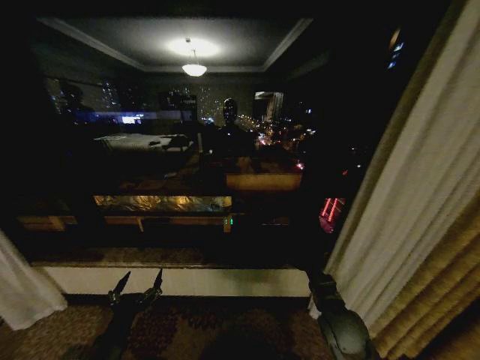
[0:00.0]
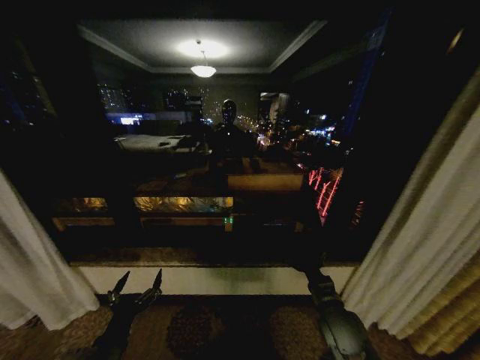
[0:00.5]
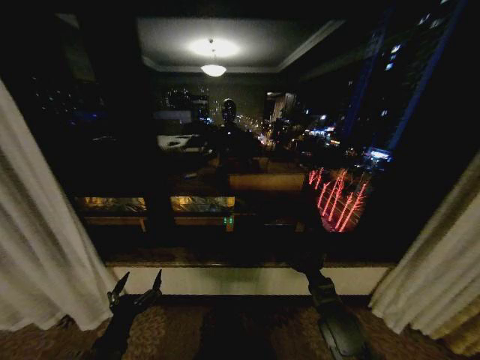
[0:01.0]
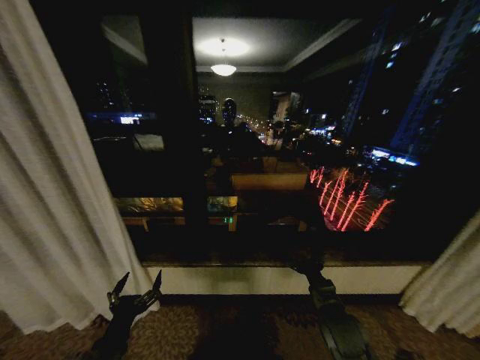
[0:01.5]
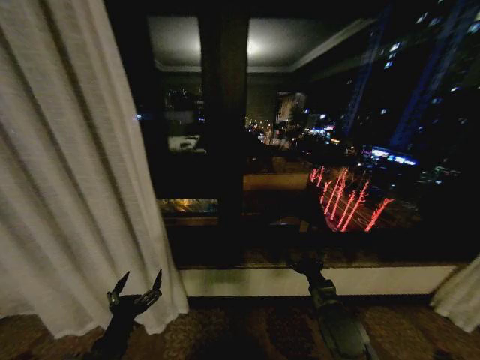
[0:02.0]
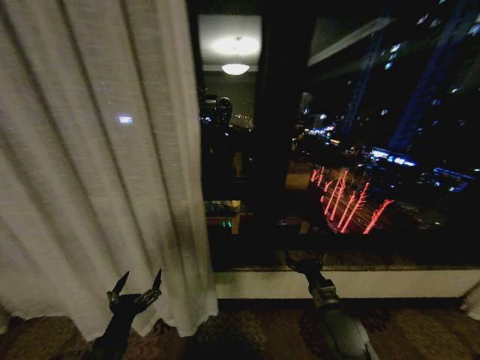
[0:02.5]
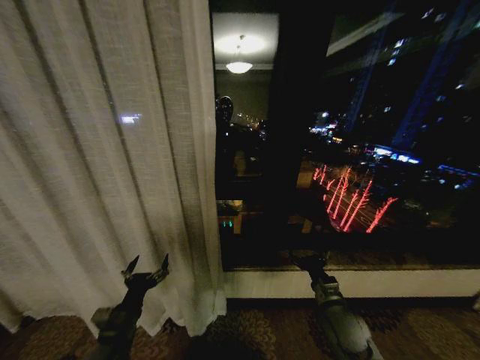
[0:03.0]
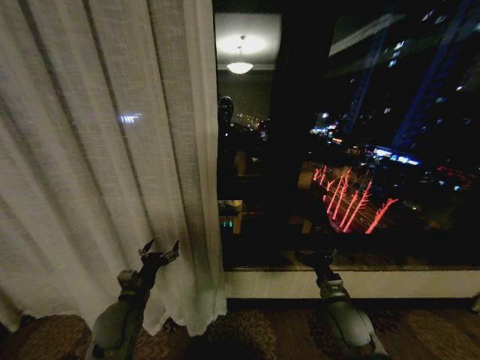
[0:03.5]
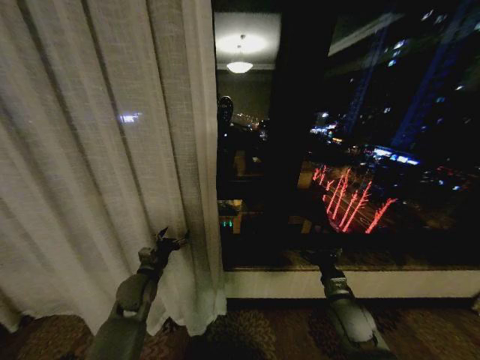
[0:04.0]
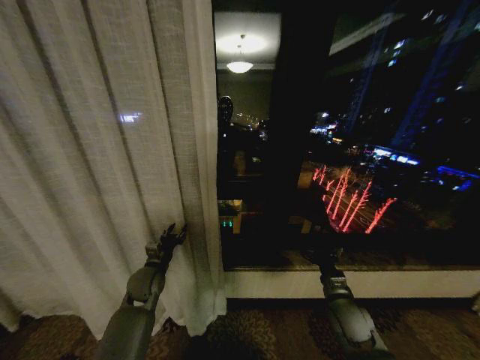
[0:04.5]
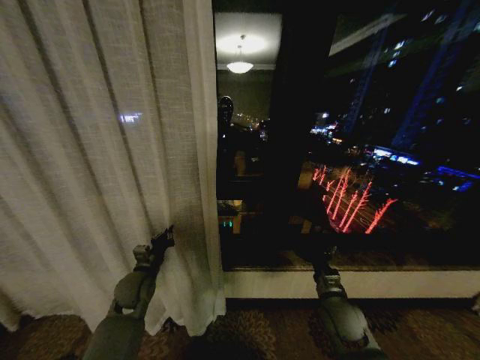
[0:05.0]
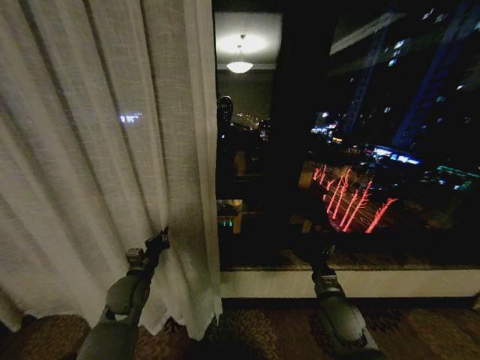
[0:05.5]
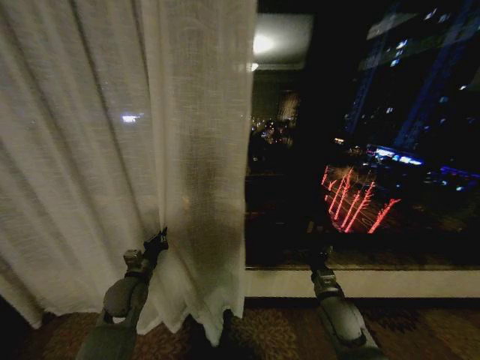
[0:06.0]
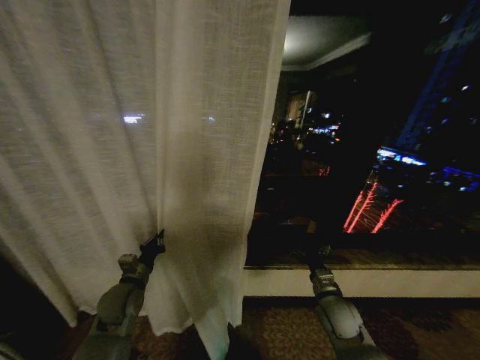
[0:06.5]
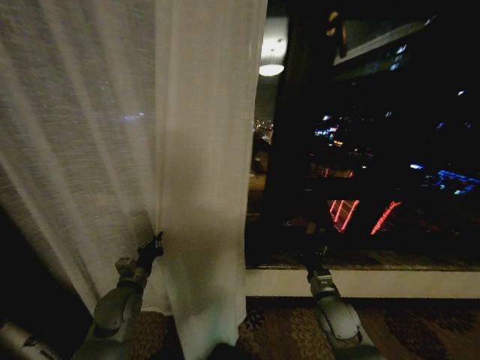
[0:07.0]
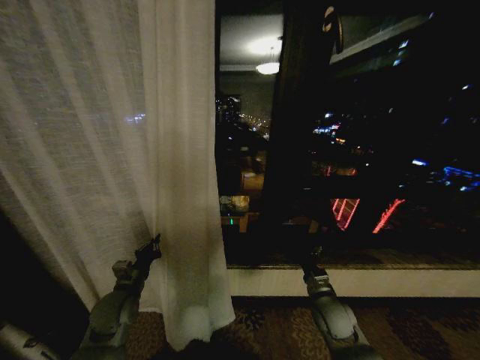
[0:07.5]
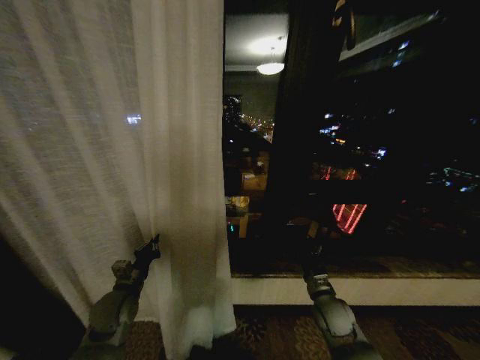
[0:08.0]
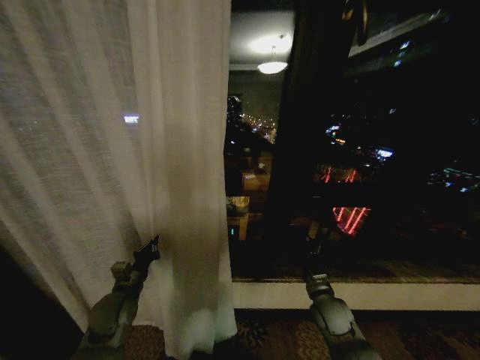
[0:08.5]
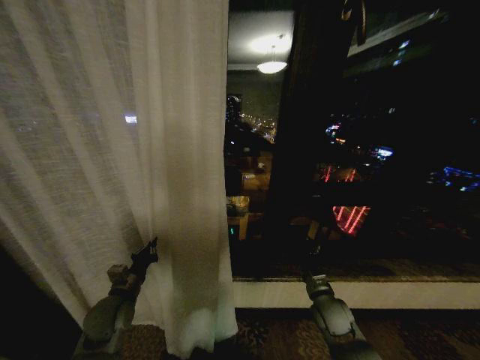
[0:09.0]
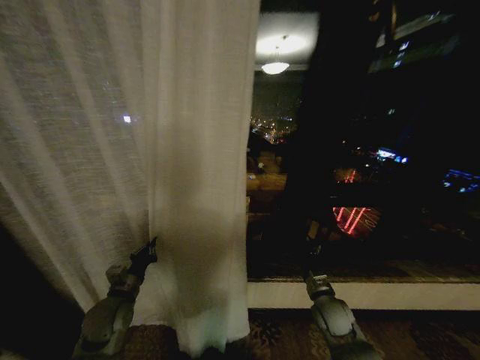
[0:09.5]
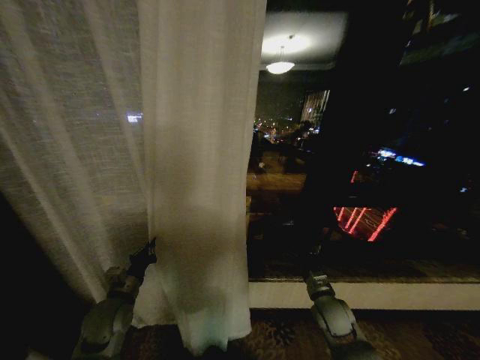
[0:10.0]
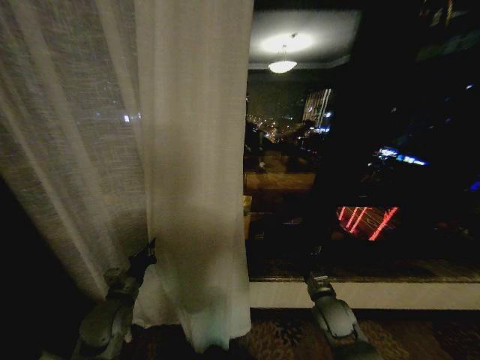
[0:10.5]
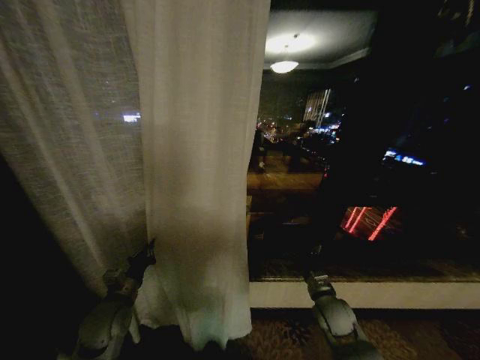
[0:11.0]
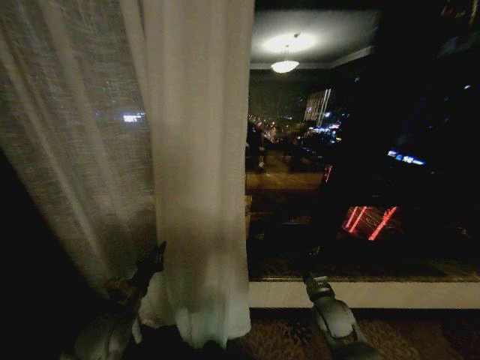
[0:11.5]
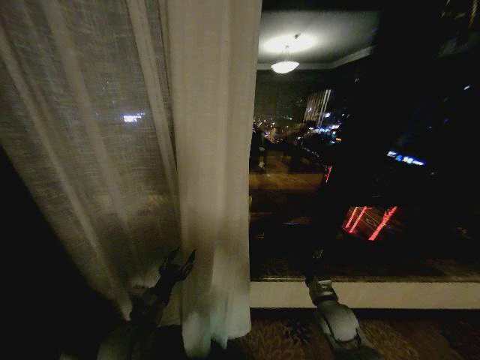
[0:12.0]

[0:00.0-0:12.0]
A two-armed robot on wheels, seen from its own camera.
Task of the whole recording: Open the curtains by pulling them apart, changing their state from closed to fully open.
0:02.0 to 0:04.0: The left gripper travels forward by roughly 25 cm.
0:04.0 to 0:06.0: The left gripper closes up.
0:10.0 to 0:12.0: The left gripper shifts about 10 cm to the right and backward, and opens.

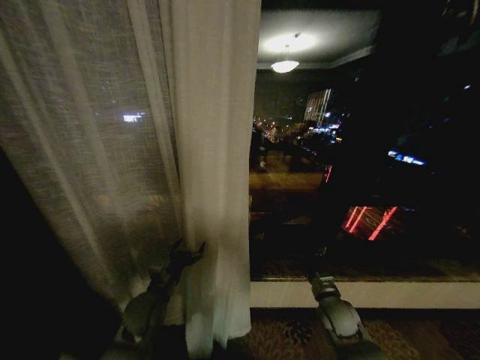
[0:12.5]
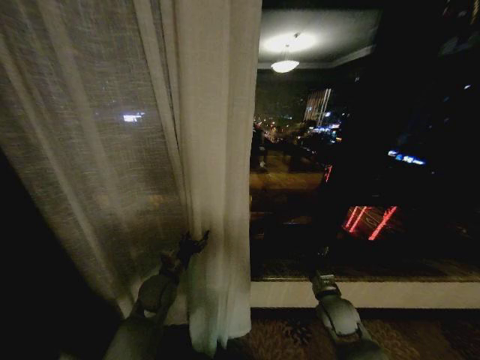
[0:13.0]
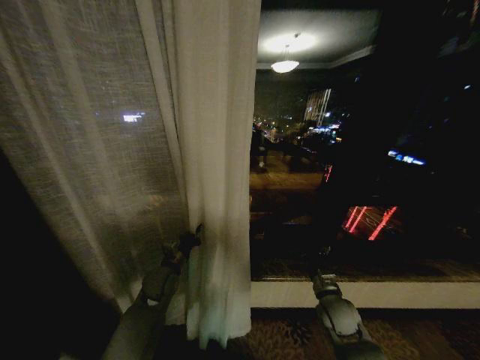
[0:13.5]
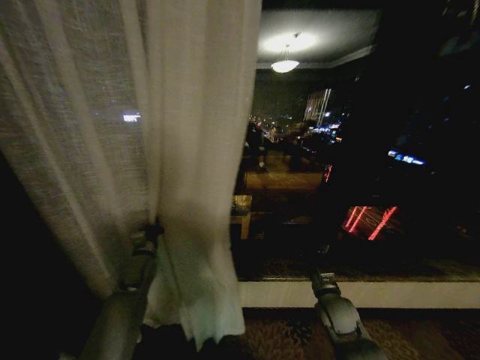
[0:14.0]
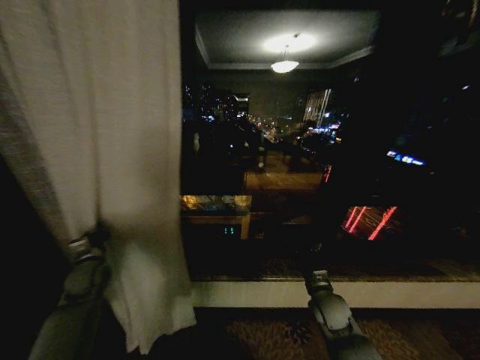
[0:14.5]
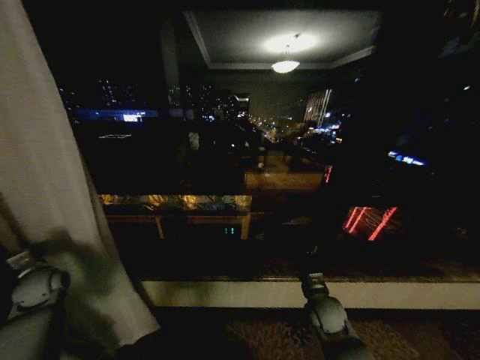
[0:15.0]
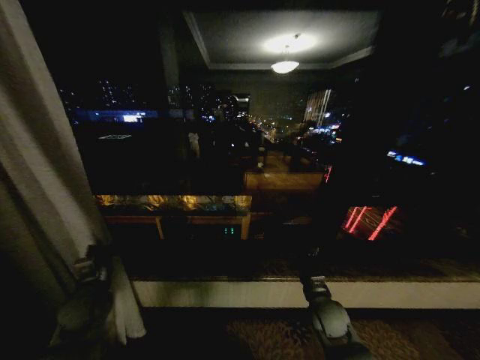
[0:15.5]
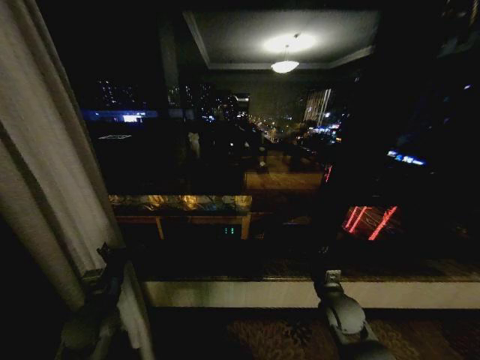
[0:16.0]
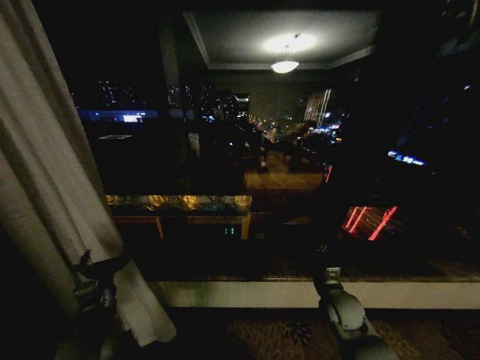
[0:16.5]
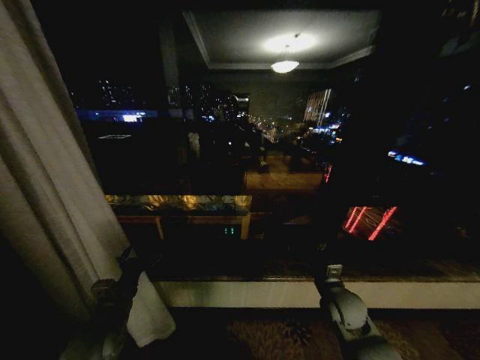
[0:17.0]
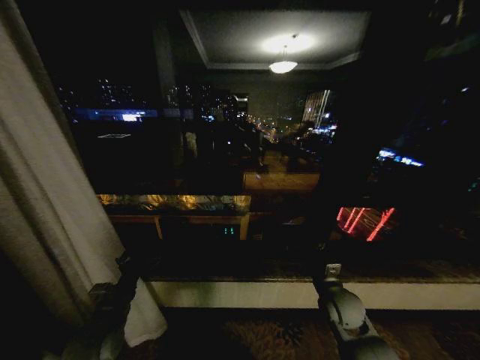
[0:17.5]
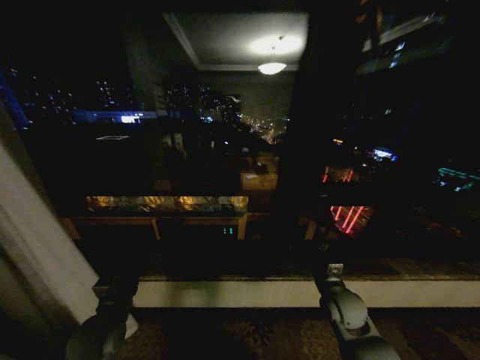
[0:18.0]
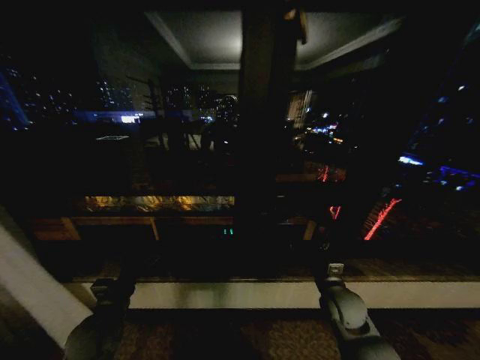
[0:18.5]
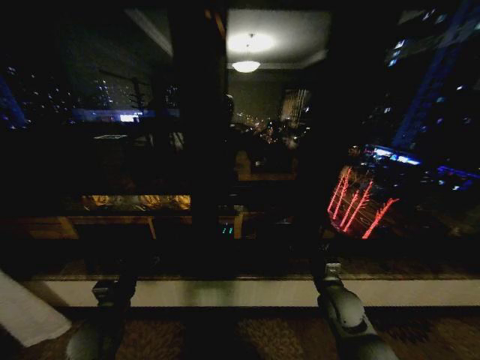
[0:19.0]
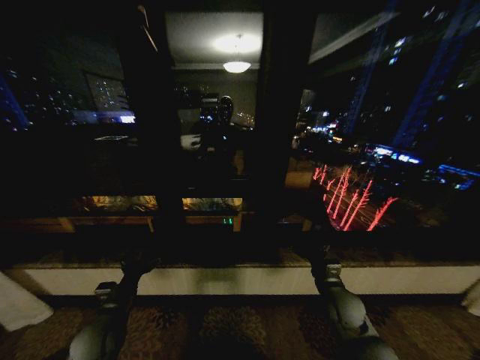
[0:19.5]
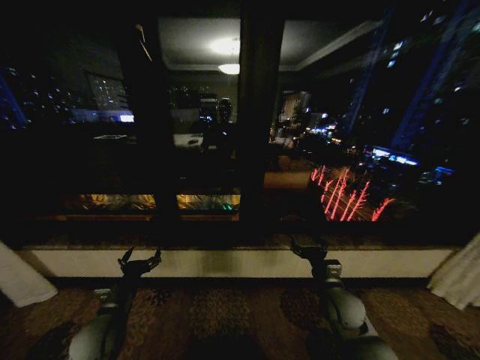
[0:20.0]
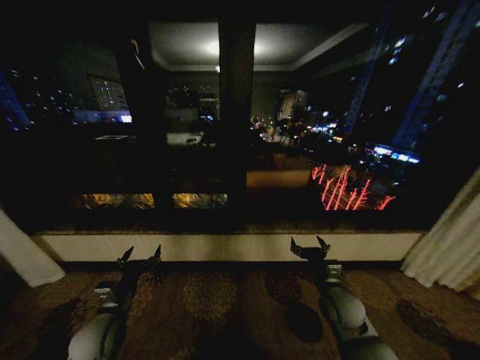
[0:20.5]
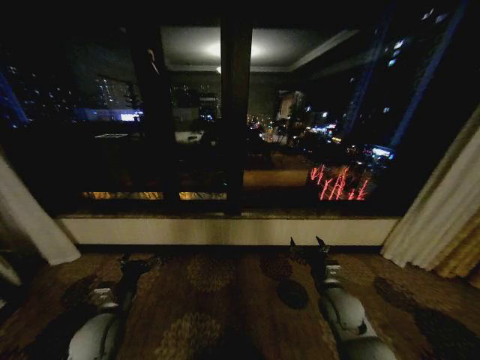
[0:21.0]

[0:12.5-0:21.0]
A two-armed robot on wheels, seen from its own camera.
Task of the whole recording: Open the curtains by pulling them apart, changing their state from closed to fully open.
0:12.5 to 0:14.5: The left gripper travels to the left by some 20 cm, and closes.
0:14.5 to 0:16.5: The left gripper shifts approximately 20 cm backward and to the right, and opens up.

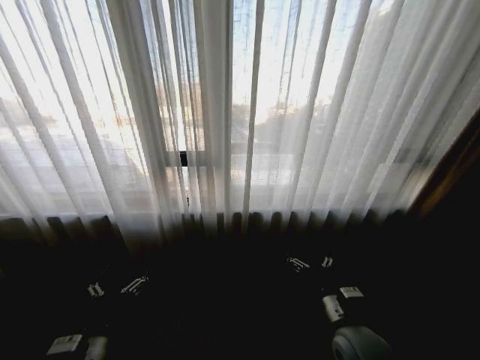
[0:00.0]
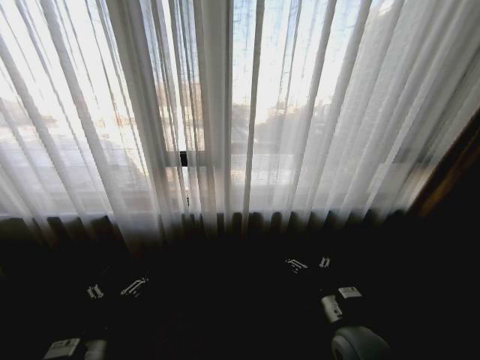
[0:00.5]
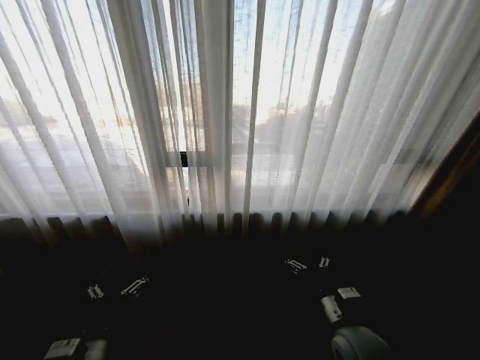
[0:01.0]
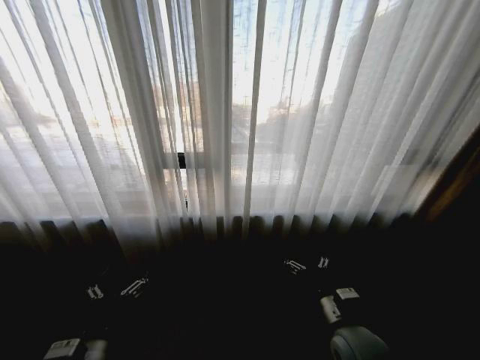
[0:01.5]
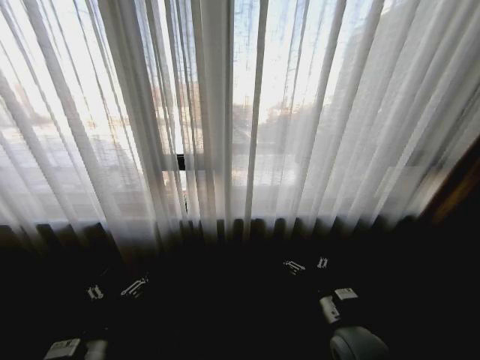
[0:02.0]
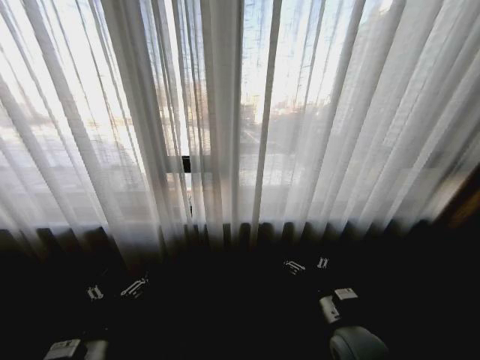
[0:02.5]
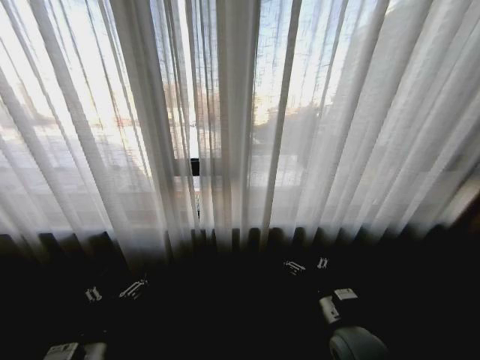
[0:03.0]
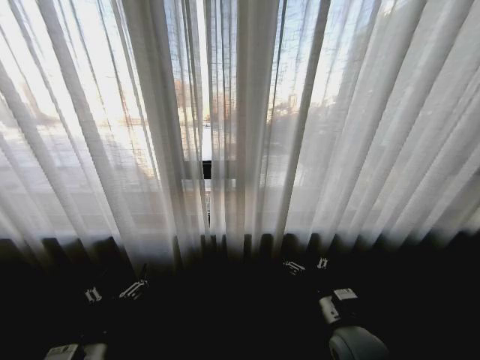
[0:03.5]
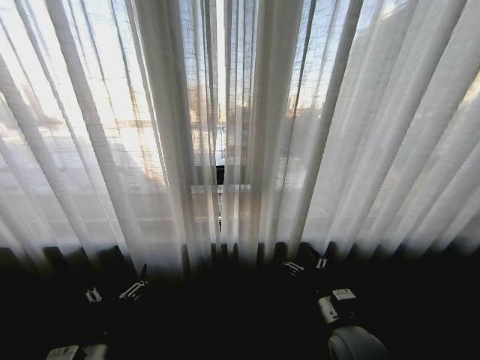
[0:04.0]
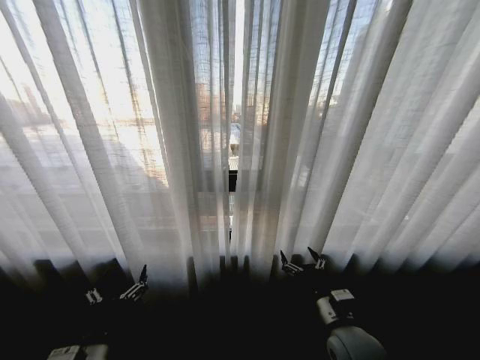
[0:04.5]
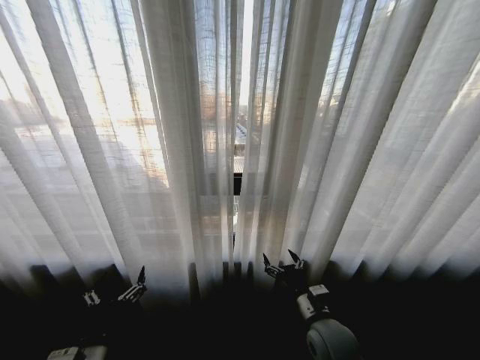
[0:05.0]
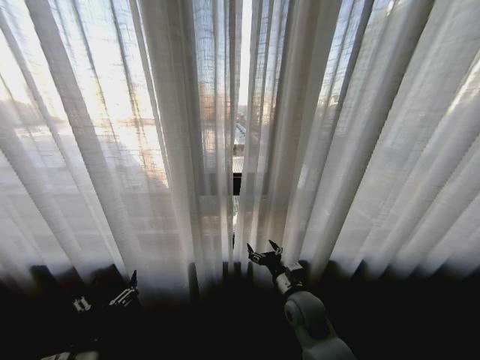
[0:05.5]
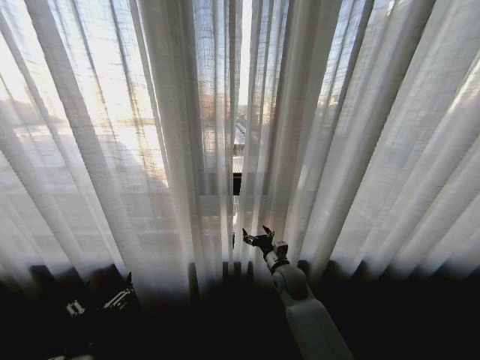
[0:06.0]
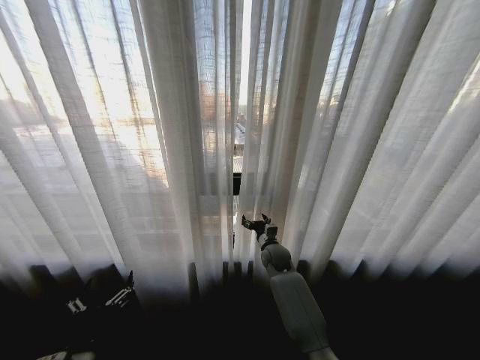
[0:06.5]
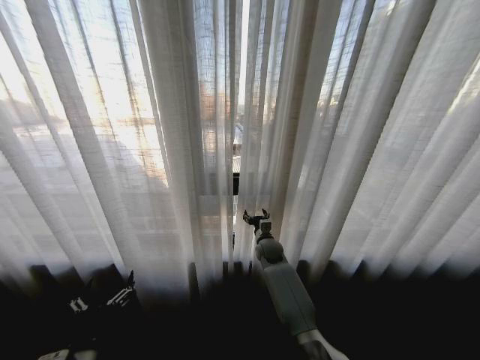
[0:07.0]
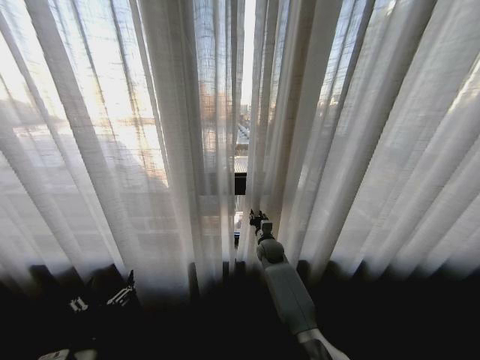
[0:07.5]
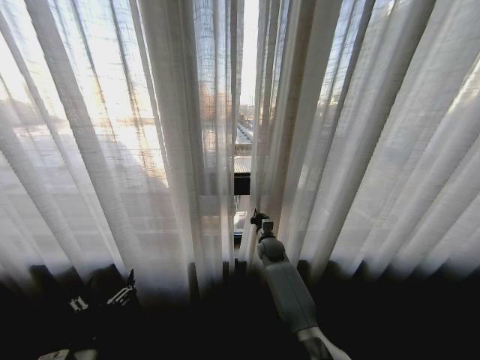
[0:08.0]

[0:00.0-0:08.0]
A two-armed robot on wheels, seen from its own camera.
Task of the whole recording: Open the curtains by pulling them apart, changing their state from closed to fully open.
0:04.0 to 0:06.0: The right gripper heads forward and to the left, covering about 20 cm.
0:06.0 to 0:08.0: The right gripper travels forward by some 15 cm, and closes up.
